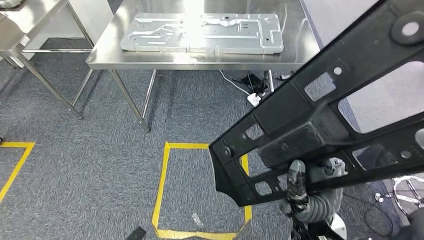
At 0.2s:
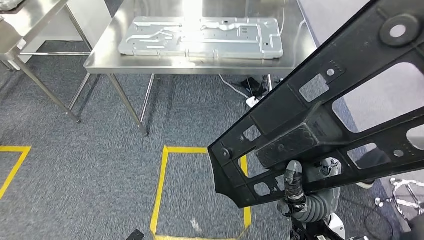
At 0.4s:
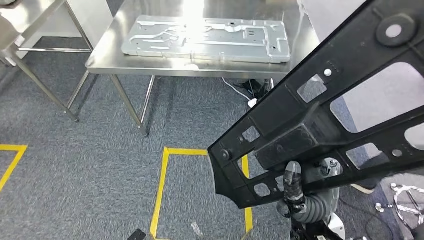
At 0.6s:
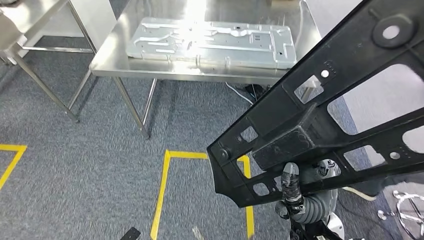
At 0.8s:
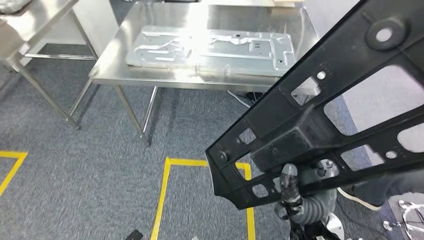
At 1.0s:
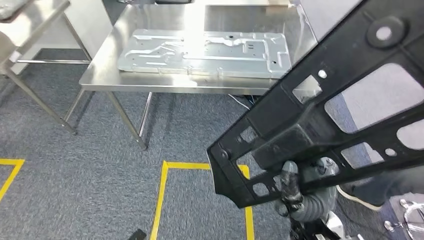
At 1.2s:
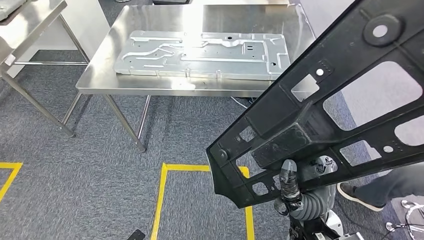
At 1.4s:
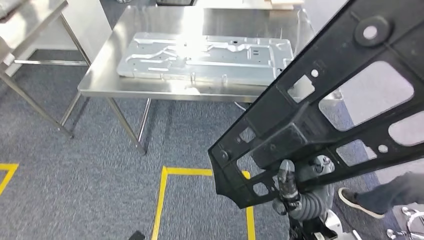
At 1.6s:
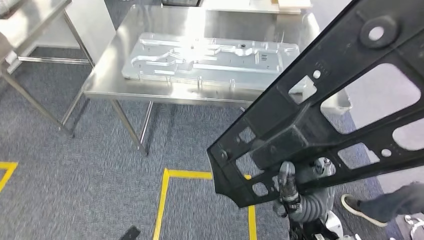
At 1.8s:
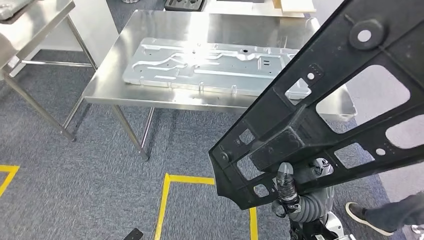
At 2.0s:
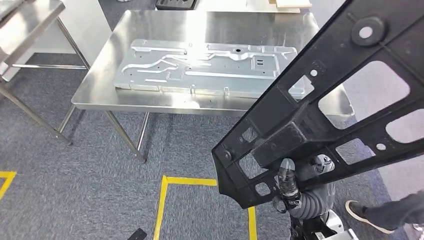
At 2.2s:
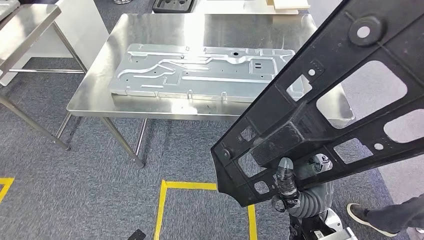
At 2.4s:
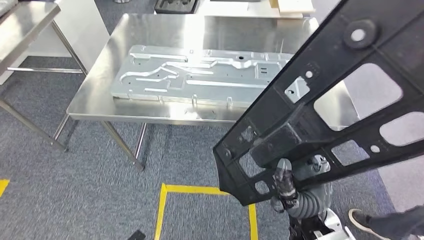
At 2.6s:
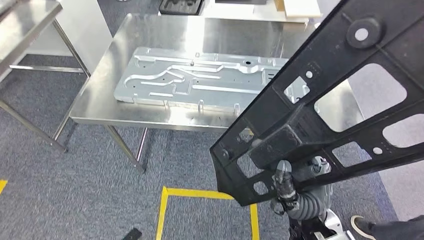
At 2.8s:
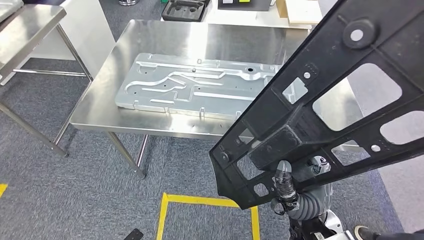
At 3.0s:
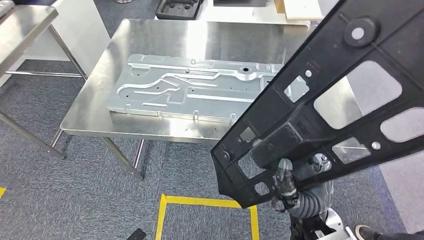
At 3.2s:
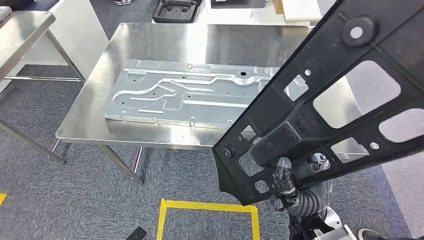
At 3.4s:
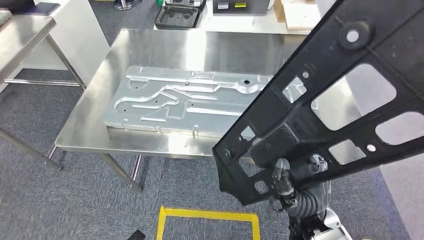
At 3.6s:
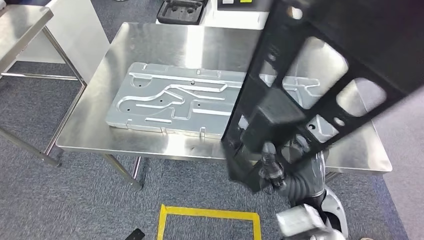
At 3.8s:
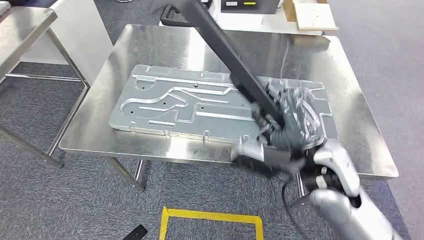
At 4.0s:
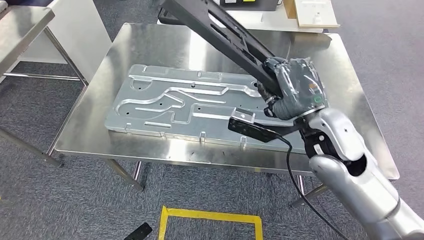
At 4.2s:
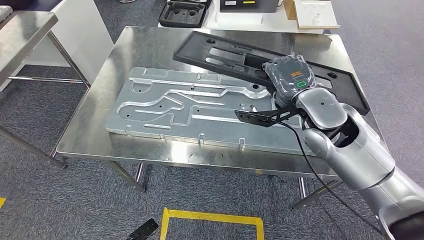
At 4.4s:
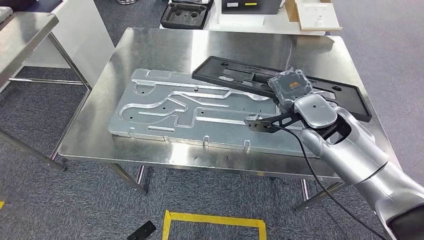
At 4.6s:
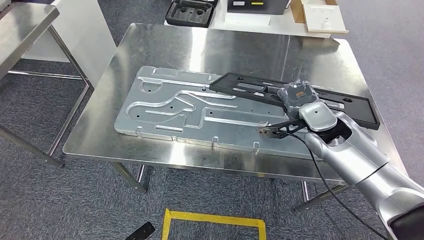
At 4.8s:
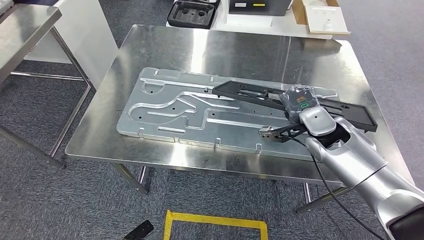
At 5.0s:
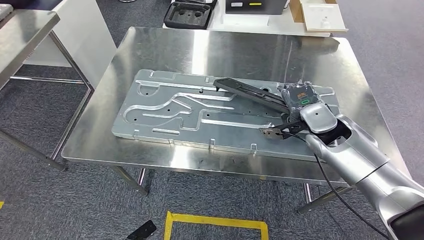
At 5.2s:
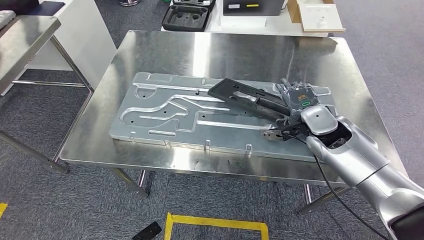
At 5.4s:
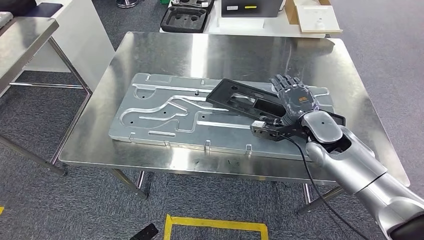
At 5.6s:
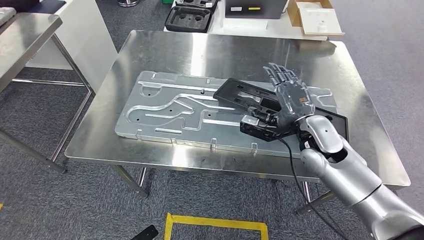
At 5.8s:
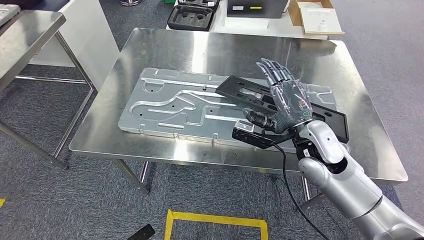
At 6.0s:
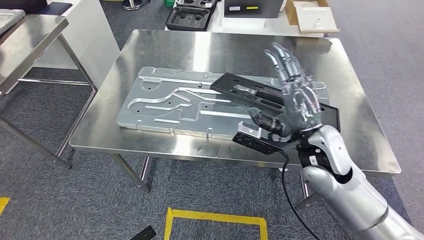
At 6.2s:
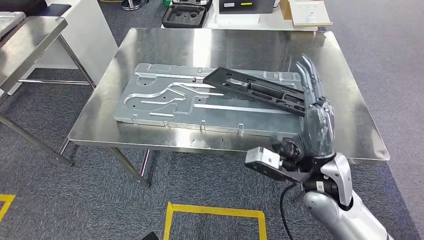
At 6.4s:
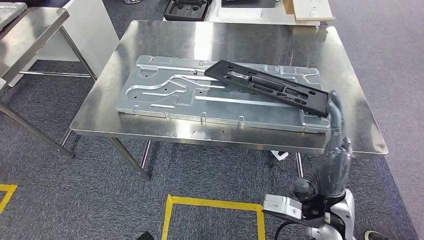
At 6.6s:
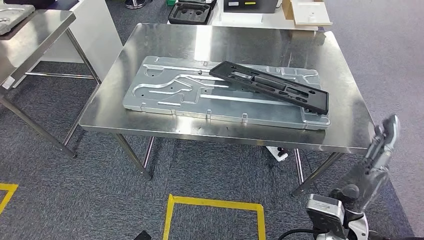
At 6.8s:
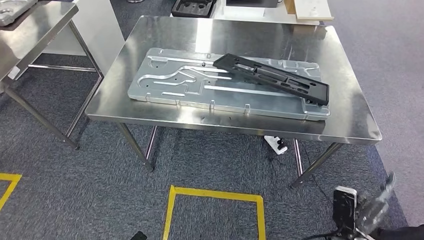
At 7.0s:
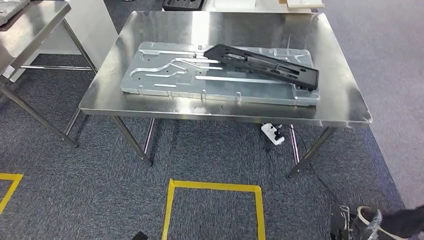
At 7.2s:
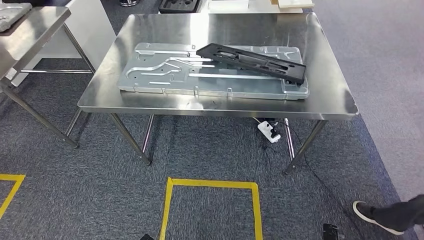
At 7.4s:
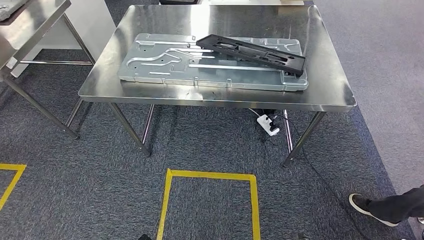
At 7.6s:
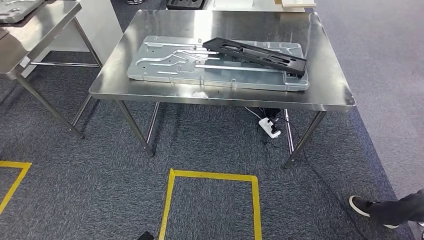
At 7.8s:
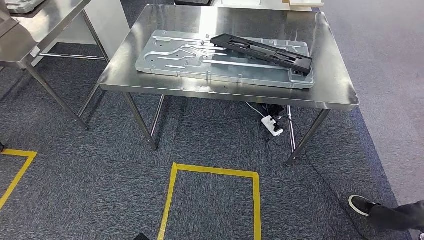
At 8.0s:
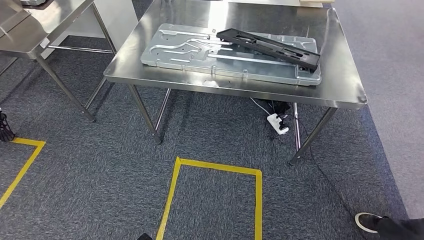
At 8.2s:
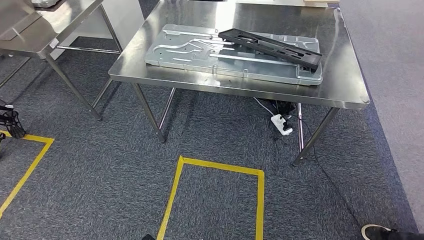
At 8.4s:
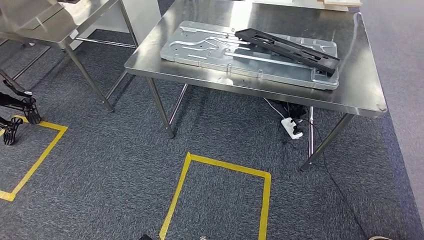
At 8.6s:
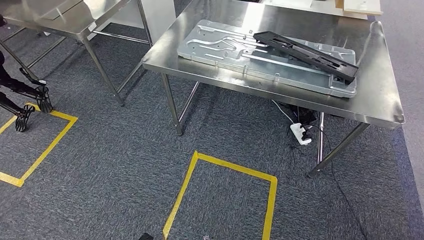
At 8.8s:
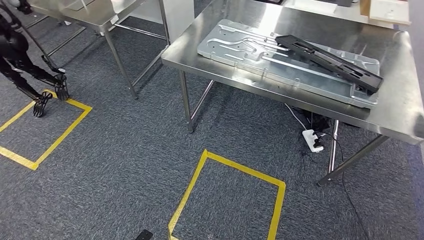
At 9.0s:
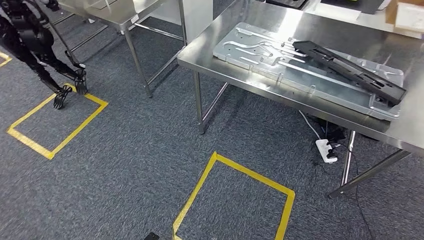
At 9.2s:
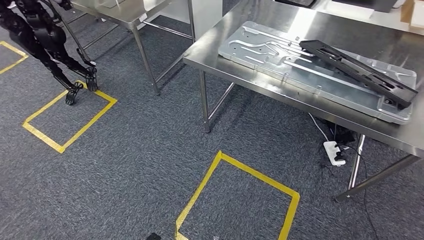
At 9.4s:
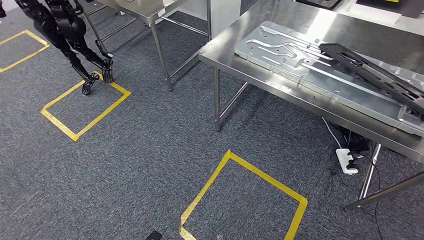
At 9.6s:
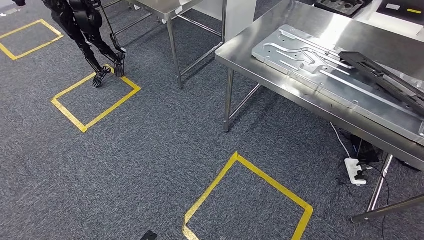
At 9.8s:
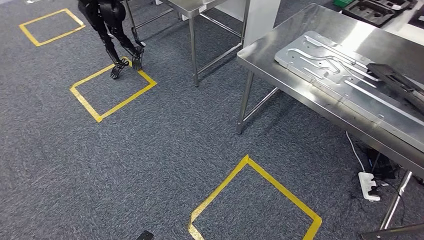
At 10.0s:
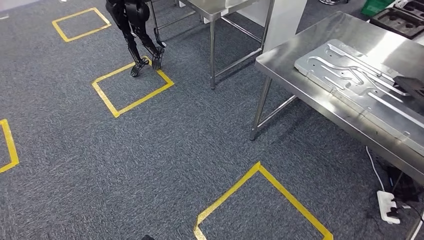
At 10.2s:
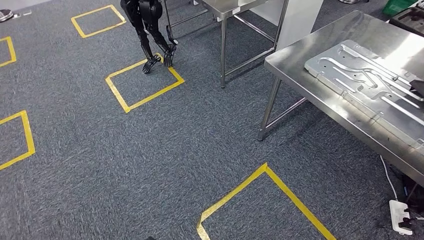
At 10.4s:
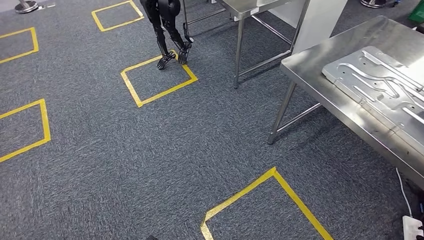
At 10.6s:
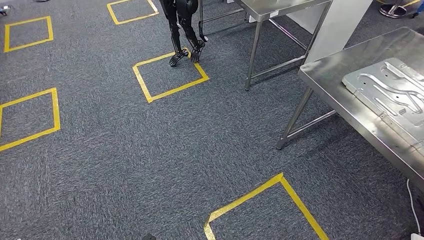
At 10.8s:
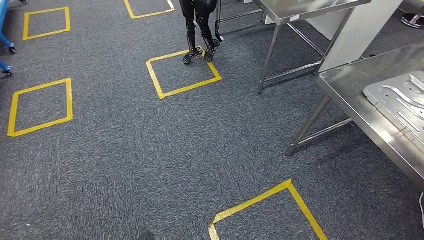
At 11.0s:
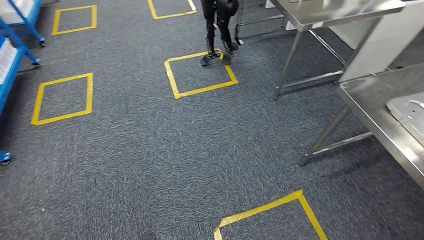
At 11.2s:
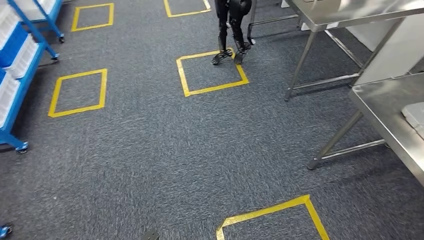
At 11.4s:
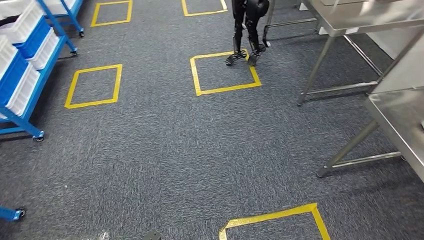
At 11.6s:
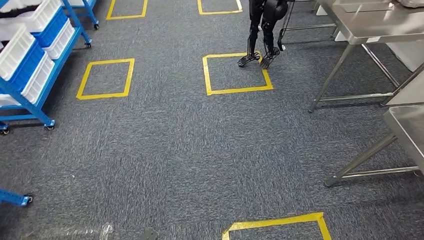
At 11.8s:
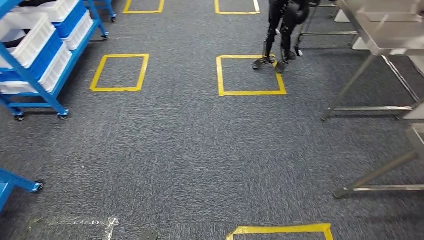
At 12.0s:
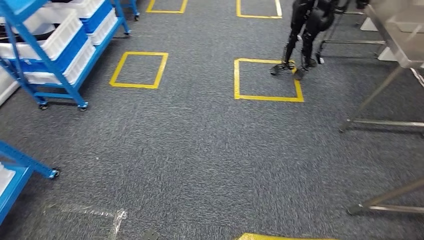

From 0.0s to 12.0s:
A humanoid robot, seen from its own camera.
Step, from 0.0s to 2.0s: Insert the large material into the corresponding slot on the workbench.
Step, from 2.2s to 3.0s: Move the large material to the workbench.
Step, from 3.2s to 7.2s: Insert the large material into the corresponding slot on the workbench.

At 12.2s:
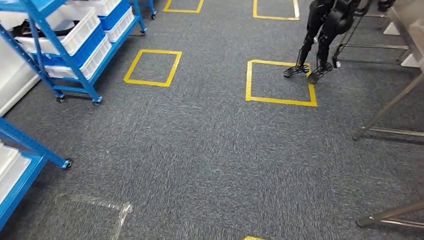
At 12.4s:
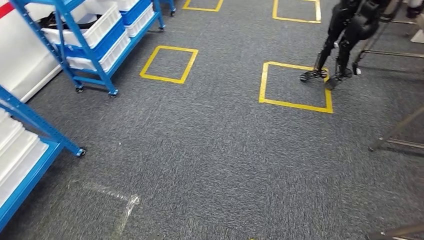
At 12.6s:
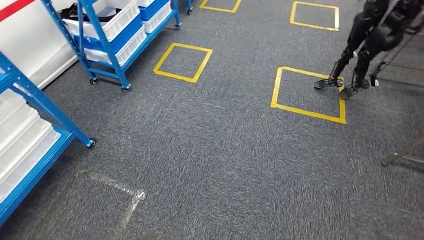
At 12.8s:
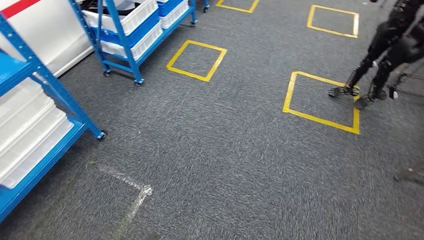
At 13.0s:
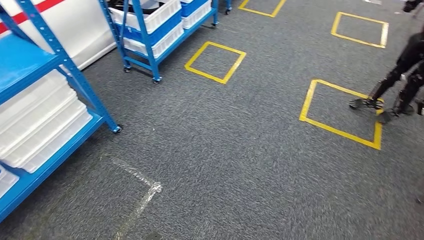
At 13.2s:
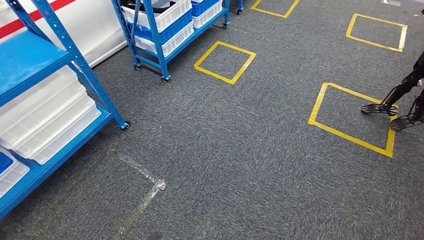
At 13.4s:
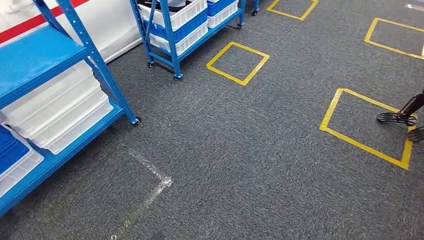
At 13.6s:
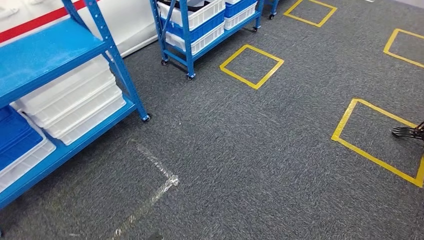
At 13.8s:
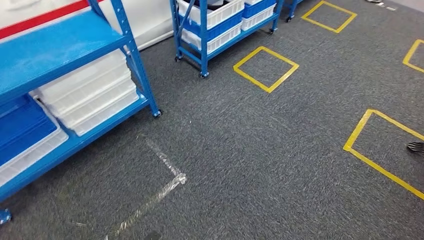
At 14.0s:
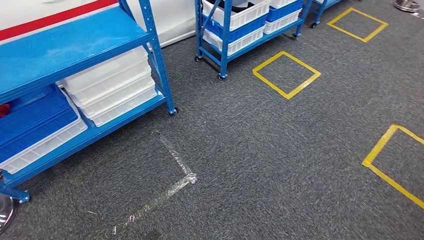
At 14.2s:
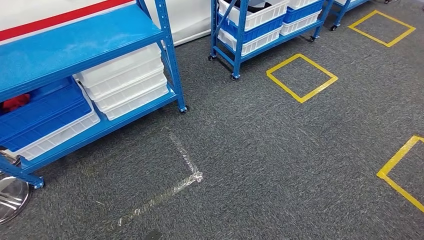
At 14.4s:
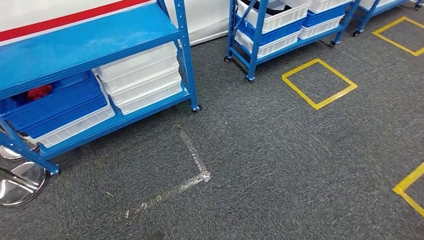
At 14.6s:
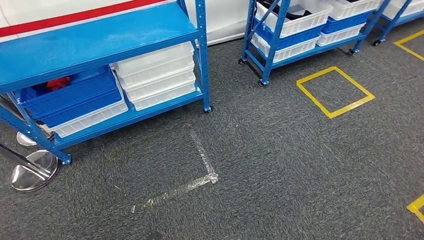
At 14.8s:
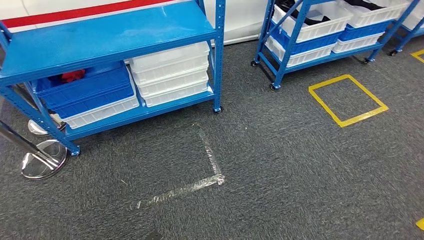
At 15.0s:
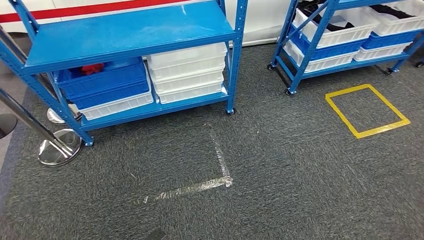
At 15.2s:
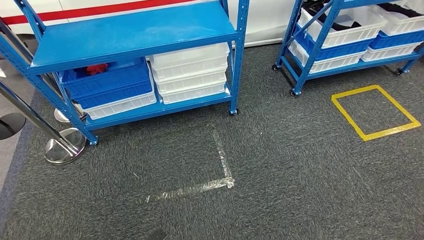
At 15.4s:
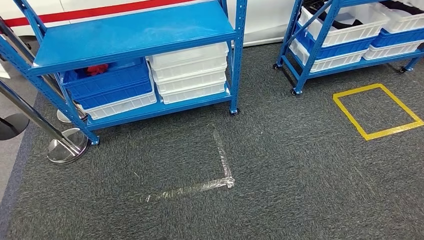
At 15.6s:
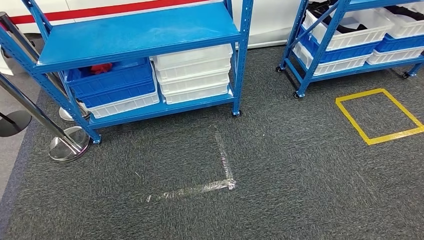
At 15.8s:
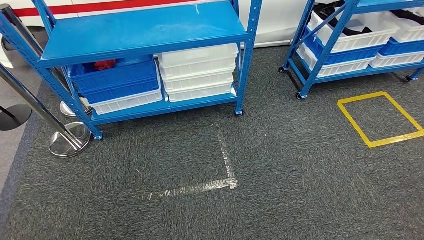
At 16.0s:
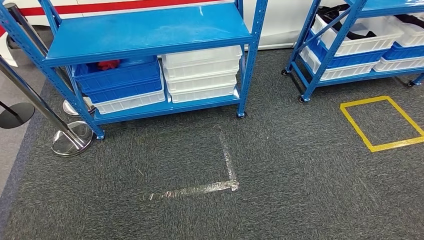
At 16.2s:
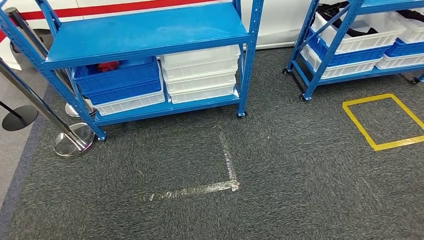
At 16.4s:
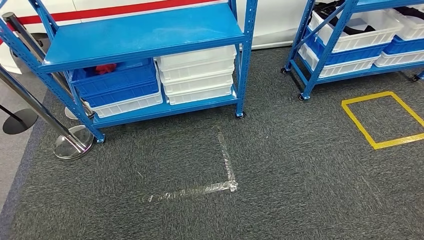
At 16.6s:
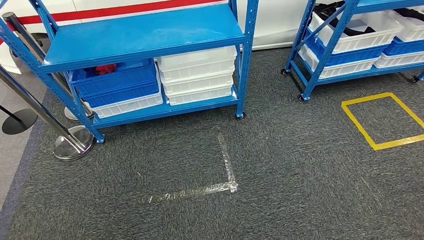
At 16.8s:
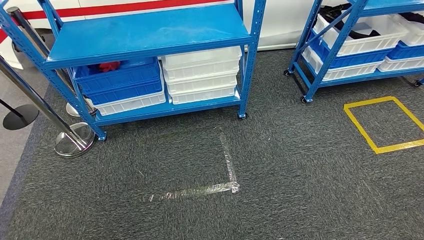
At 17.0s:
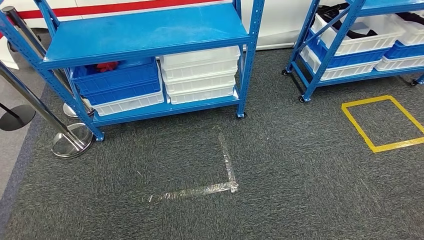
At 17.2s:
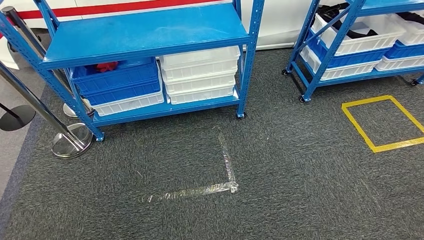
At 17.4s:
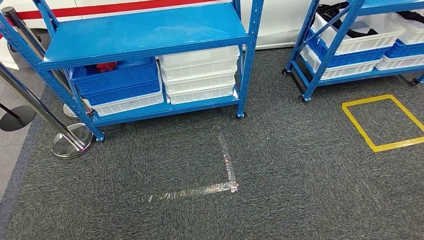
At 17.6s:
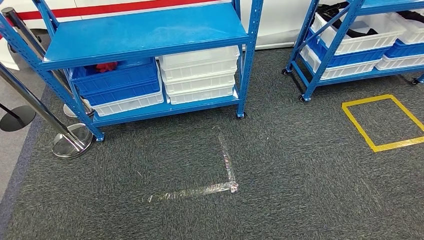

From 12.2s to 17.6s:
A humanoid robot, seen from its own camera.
Step, from 12.2s to 17.6s: Move to the initial position of the shelf.
From 16.2s to 17.6s: The left hand moves backward and to the left, about 10 cm.
